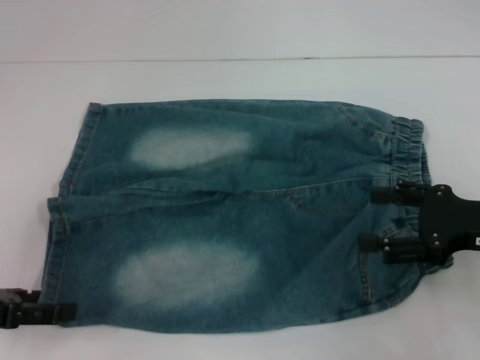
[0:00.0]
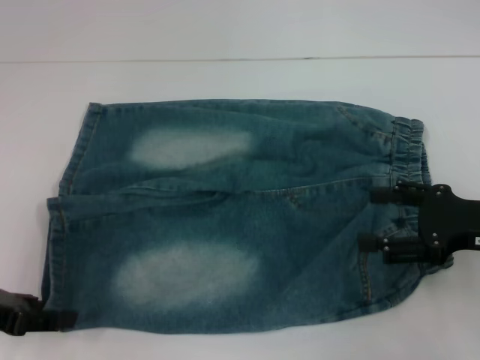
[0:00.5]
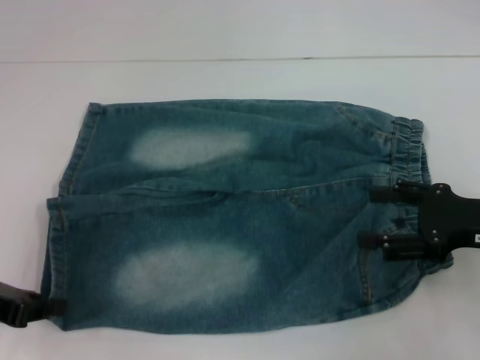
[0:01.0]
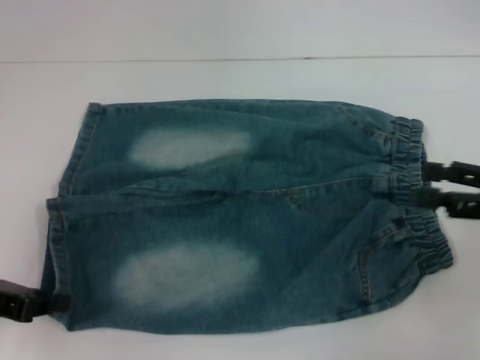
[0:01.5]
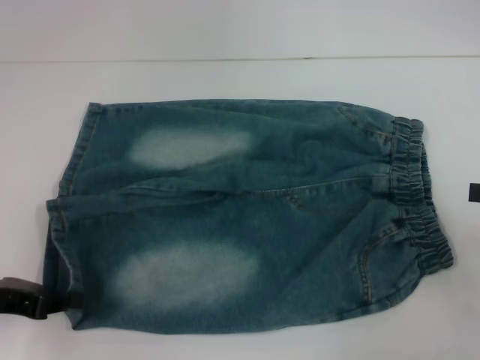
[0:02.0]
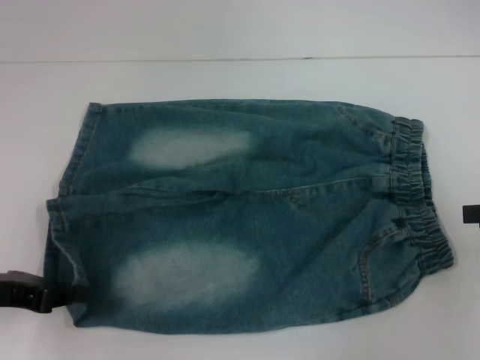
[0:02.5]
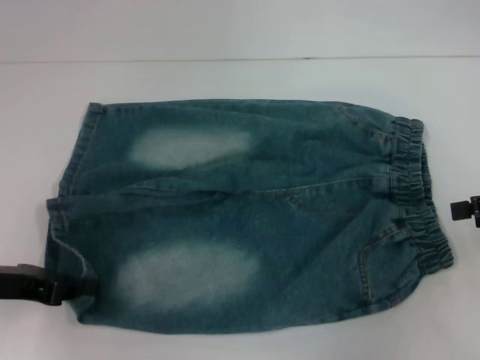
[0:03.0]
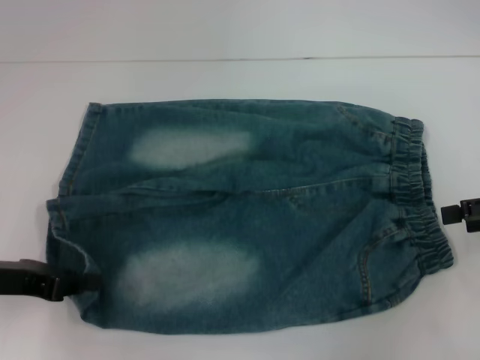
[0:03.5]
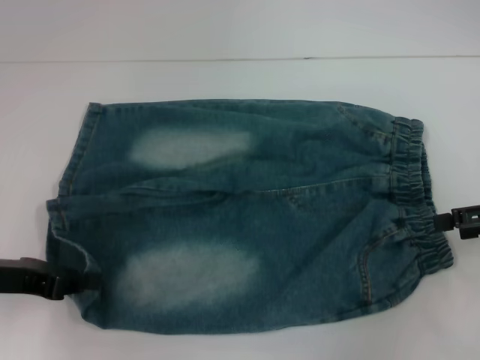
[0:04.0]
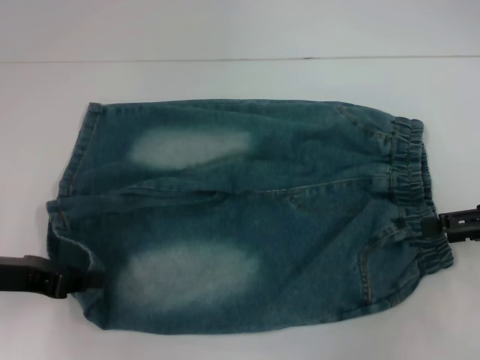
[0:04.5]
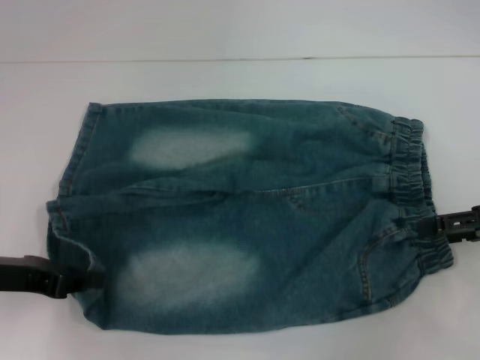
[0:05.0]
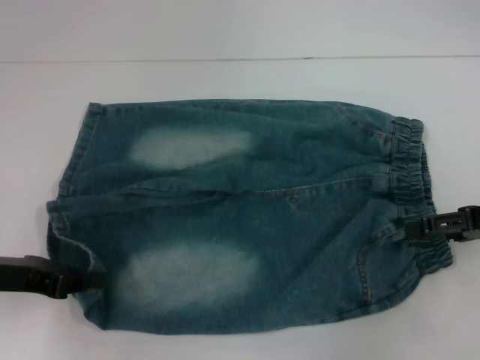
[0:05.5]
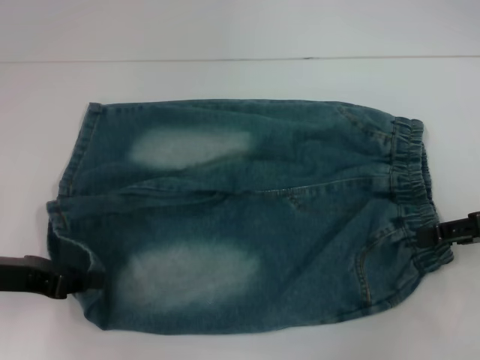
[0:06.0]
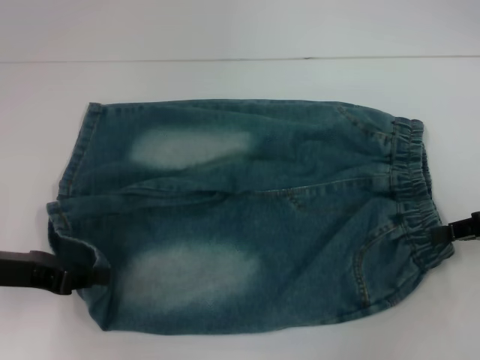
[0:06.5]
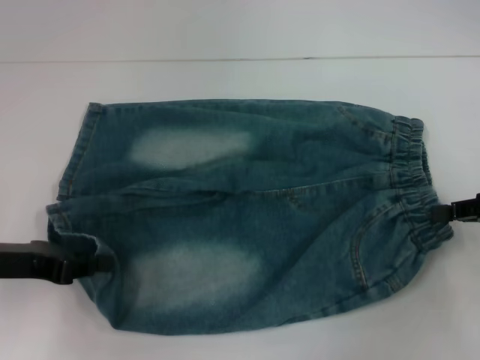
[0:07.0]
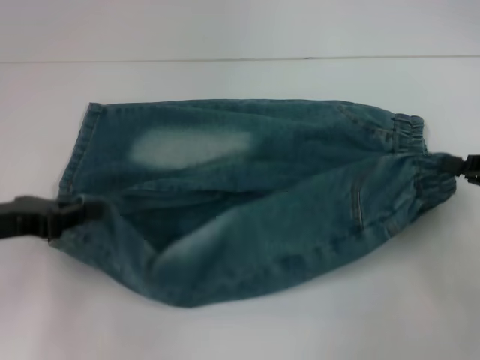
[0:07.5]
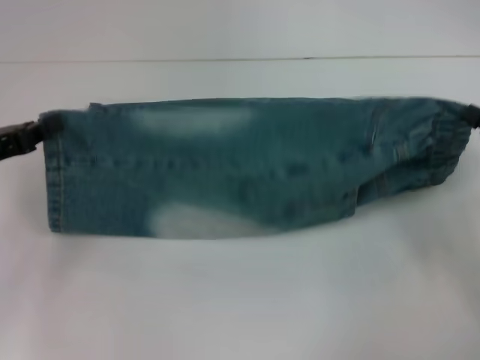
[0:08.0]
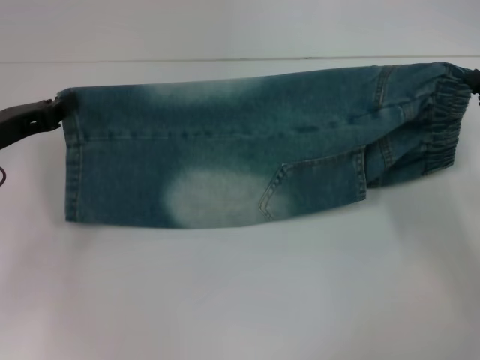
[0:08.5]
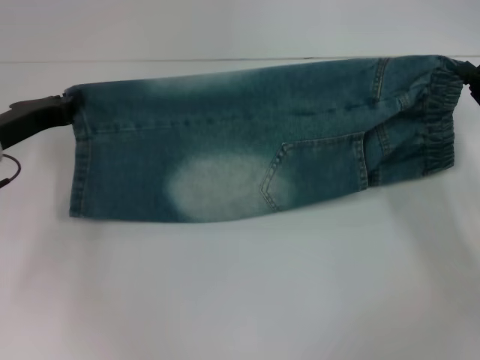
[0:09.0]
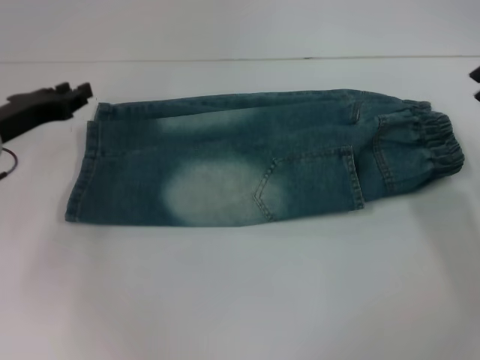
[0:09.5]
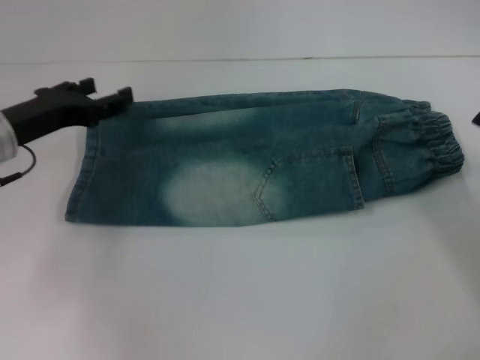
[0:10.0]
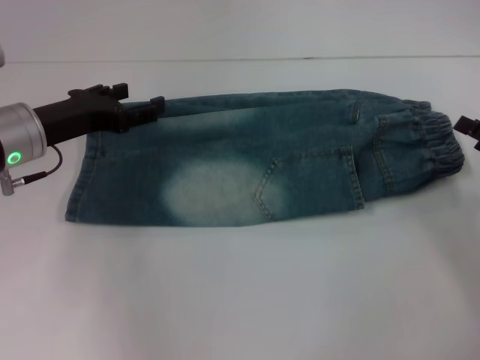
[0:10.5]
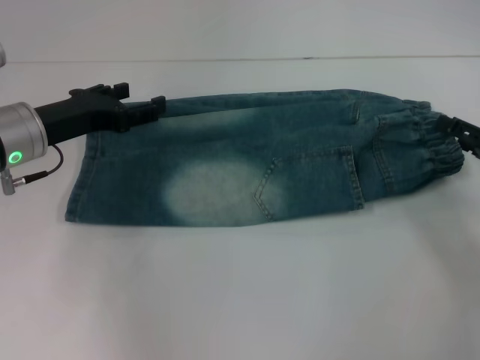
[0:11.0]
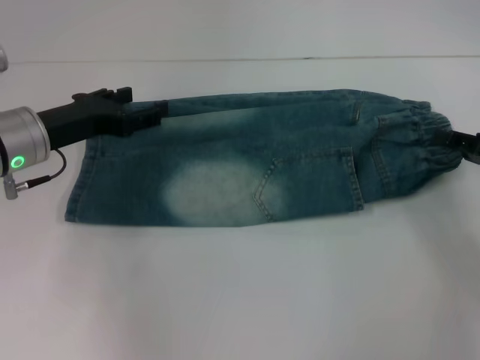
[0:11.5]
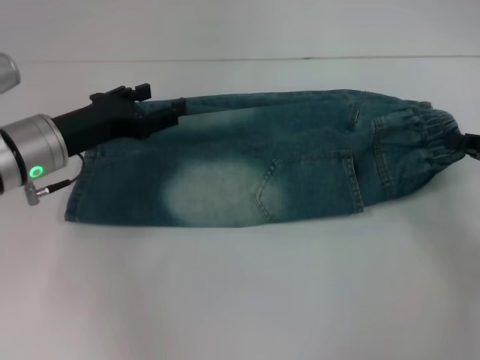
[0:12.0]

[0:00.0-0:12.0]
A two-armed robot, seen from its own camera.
Step, 0:01.5 to 0:07.0: Hold the lower right waistband with your right hand.
Step, 0:07.5 to 0:09.5: Fold upward with your right hand.
0:00.0 to 0:02.0: The left gripper closes its fingers. Meanwhile the right gripper moves to the right, roughly 10 cm.
0:04.0 to 0:06.0: The grippers stay close to where they were, moving slightly.
0:06.0 to 0:08.0: The right gripper closes.
0:08.0 to 0:10.0: The right gripper opens its fingers; the left gripper goes some 10 cm to the right and forward, and opens its fingers.
0:10.0 to 0:12.0: The right gripper closes.

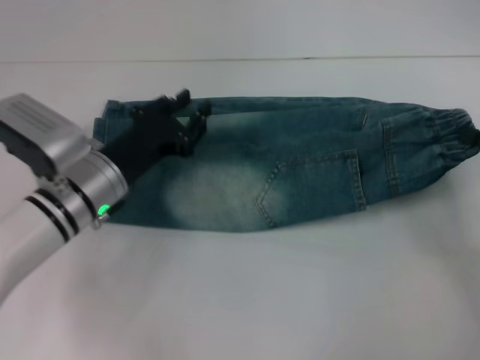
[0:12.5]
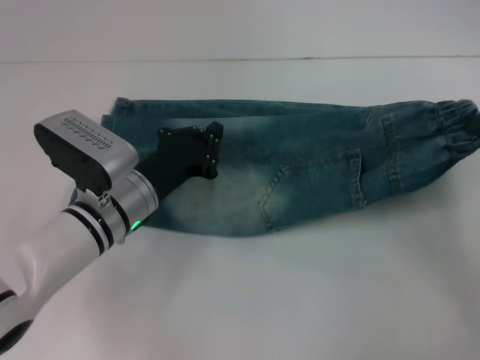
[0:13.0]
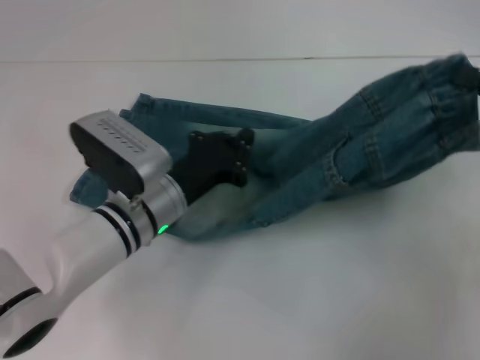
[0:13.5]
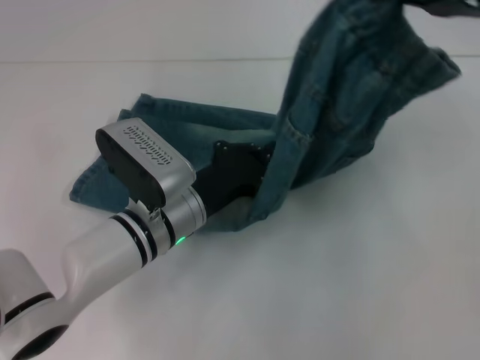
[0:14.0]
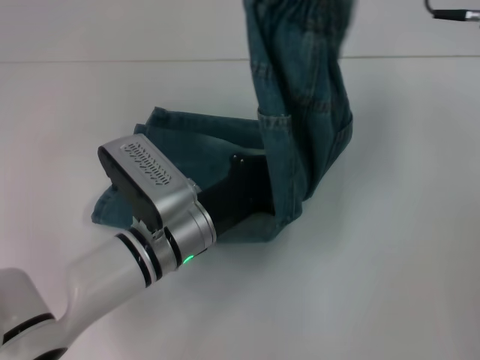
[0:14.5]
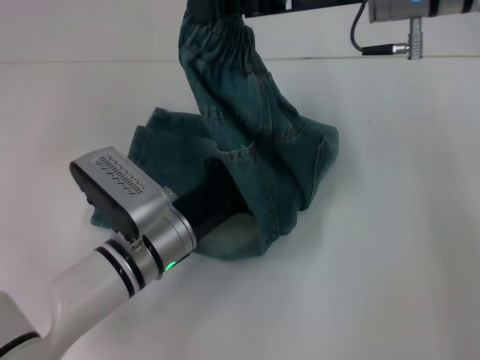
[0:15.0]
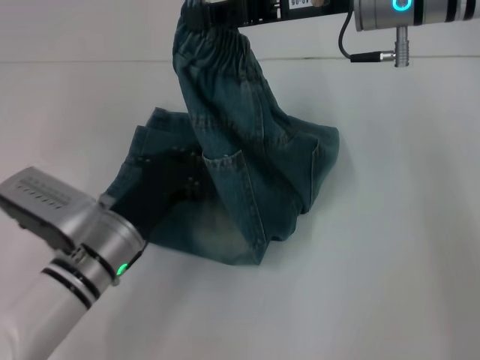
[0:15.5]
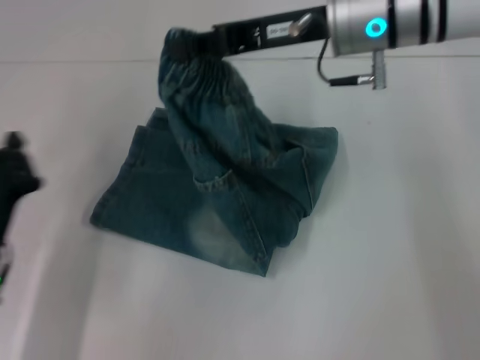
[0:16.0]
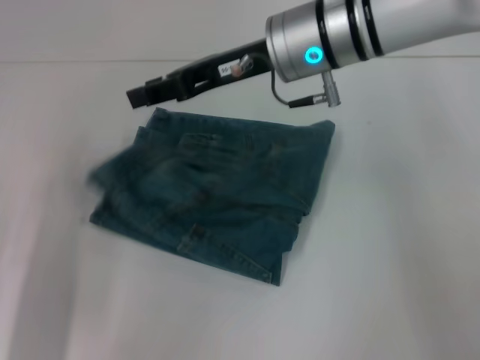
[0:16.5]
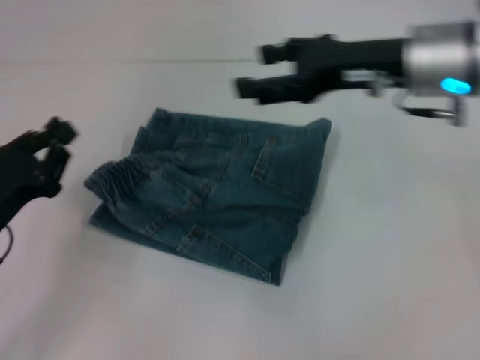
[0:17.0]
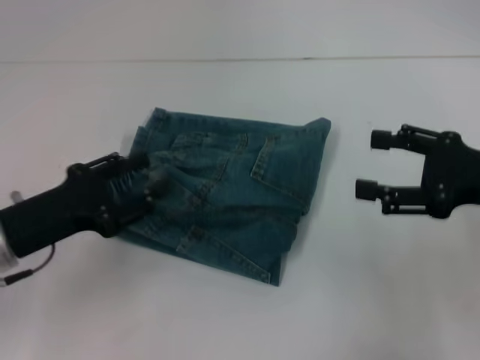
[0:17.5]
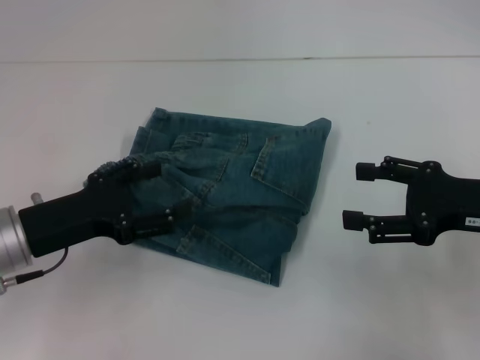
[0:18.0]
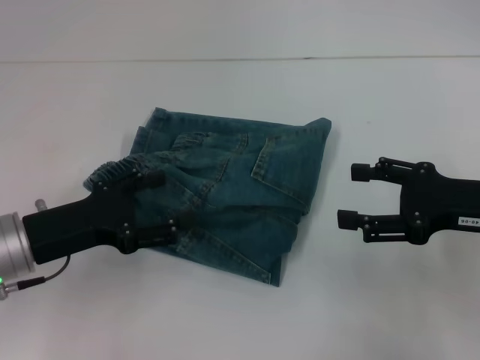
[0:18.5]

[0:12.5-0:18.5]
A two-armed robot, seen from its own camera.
Step, 0:12.5 to 0:15.0: Press the middle of the pants with your left hand.
Step, 0:15.5 to 0:16.5: Fold to the left with your right hand.
0:12.5 to 0:14.5: The left gripper goes approximately 10 cm to the right, and closes its fingers. The right gripper travels upward, to the left and forward by some 30 cm.
0:14.5 to 0:16.5: The right gripper travels to the left and downward by approximately 15 cm; the left gripper heads to the left, covering roughly 20 cm.
0:16.5 to 0:18.5: The left gripper shifts some 5 cm upward, and opens its fingers; the right gripper heads to the right, backward and downward, covering some 25 cm, and opens its fingers.

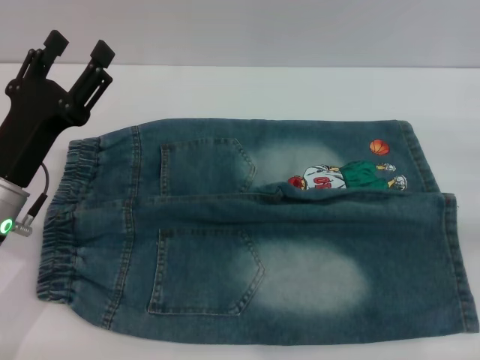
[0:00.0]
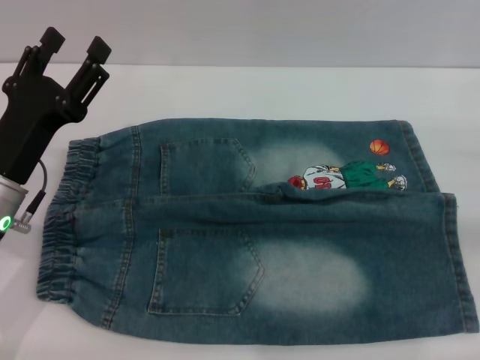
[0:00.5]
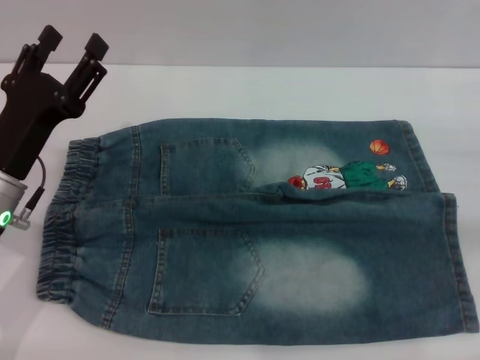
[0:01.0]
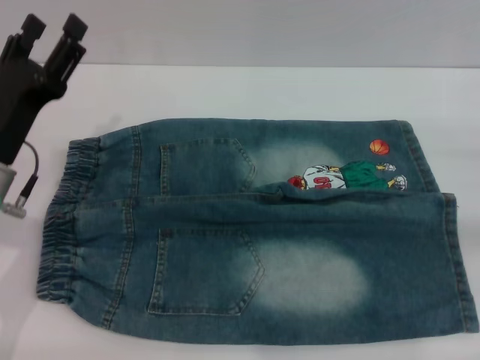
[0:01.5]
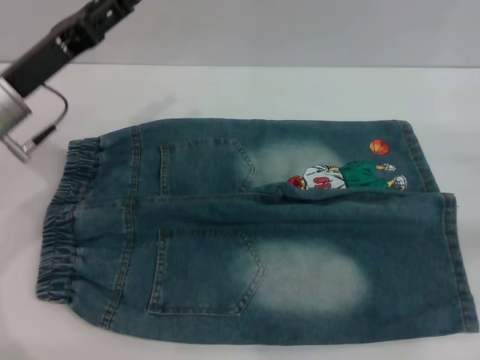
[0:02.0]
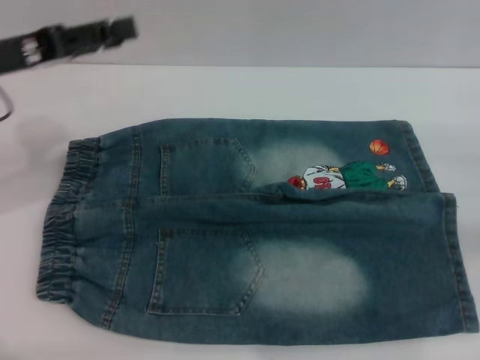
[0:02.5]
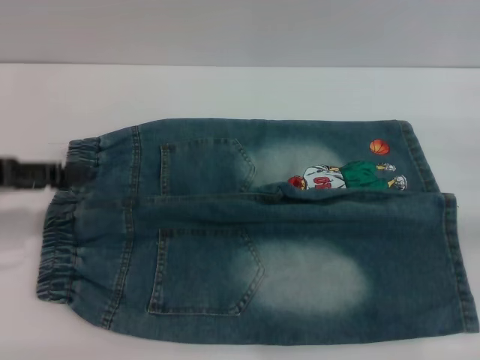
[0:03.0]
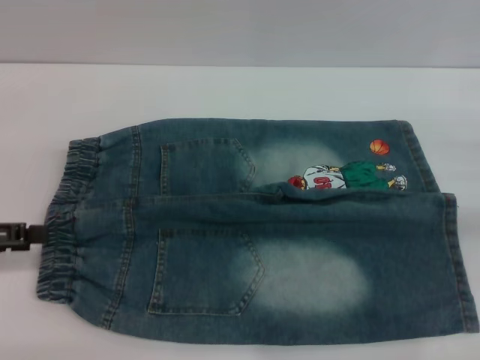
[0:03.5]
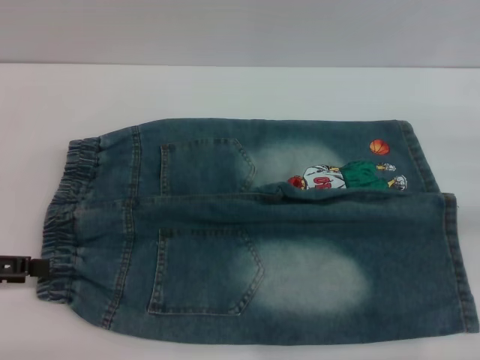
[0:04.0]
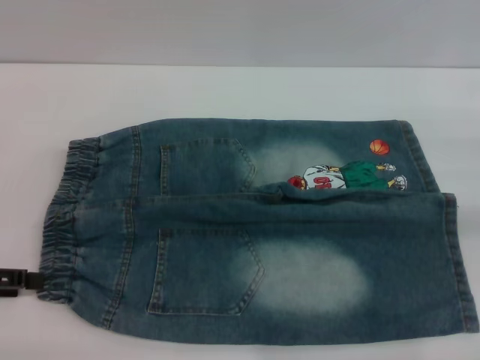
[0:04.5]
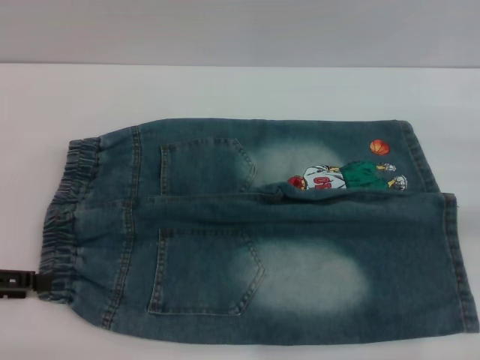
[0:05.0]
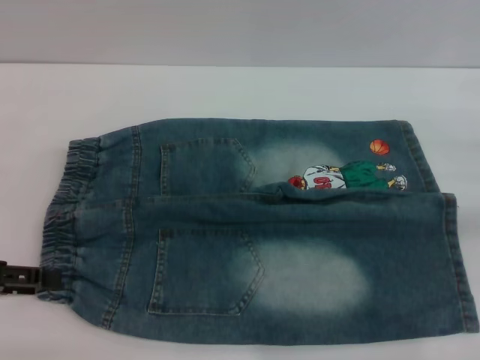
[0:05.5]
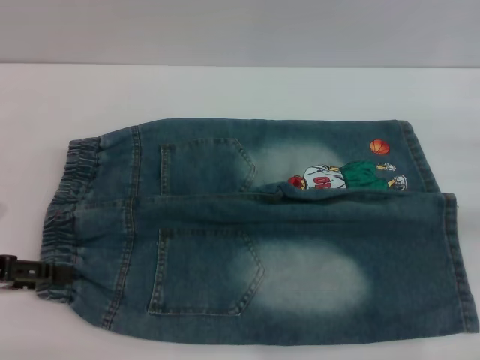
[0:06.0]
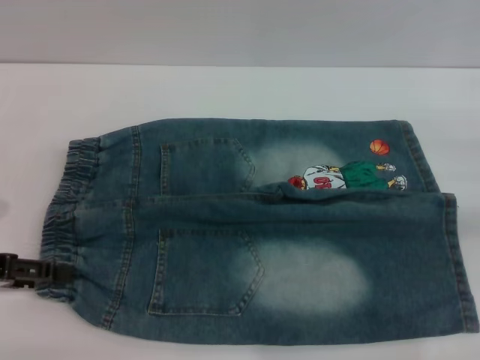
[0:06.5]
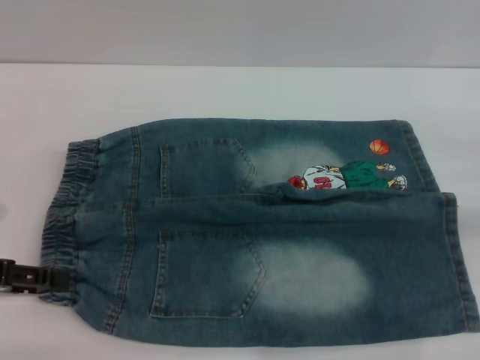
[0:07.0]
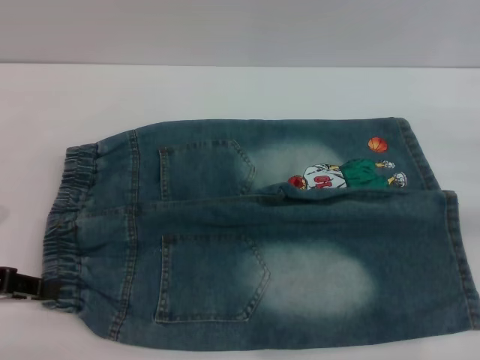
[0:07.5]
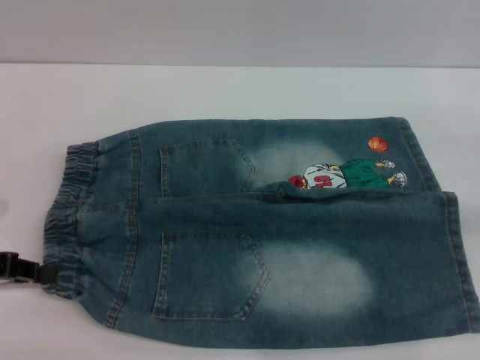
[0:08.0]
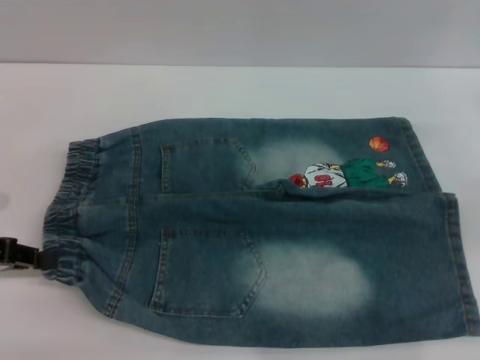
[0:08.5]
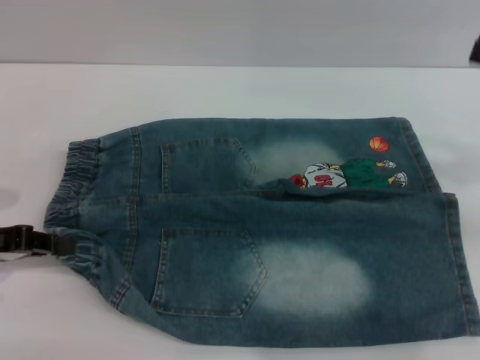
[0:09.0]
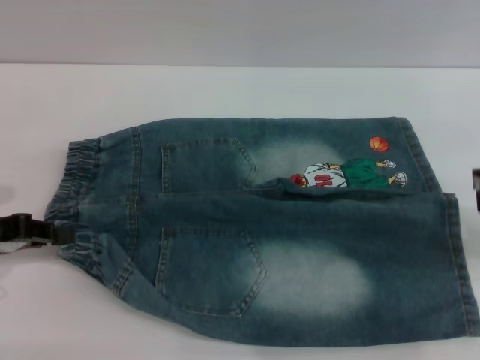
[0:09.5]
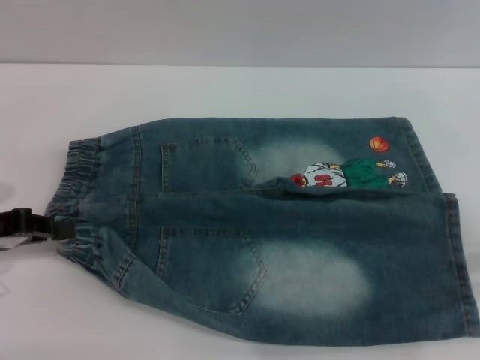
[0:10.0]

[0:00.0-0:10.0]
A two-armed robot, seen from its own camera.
0:00.0 to 0:02.0: The left gripper heads forward and upward, covering approximately 10 cm.
0:02.0 to 0:04.0: The left gripper moves to the left and backward, roughly 15 cm.
0:06.0 to 0:08.0: The left gripper closes up.
0:08.0 to 0:10.0: The right gripper shifts some 10 cm upward.
